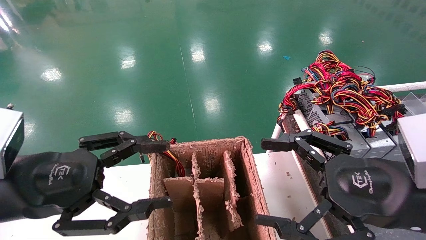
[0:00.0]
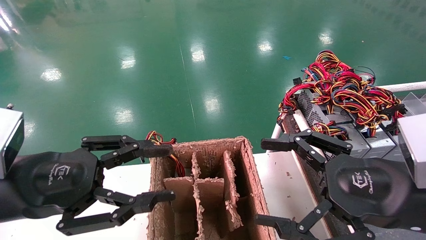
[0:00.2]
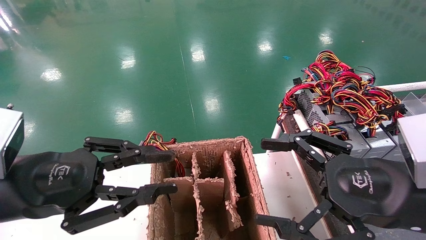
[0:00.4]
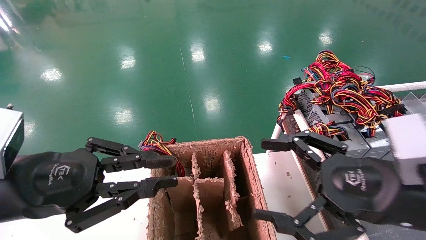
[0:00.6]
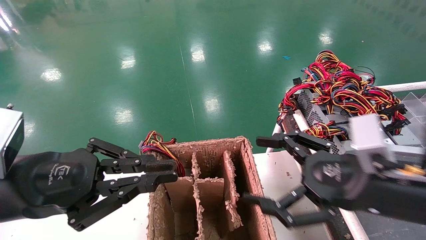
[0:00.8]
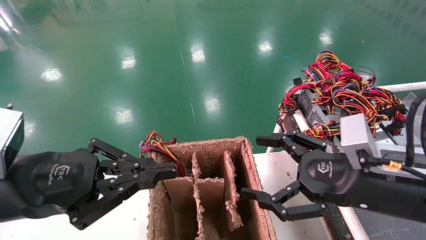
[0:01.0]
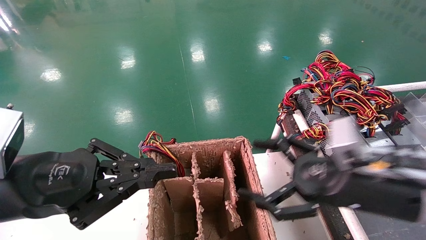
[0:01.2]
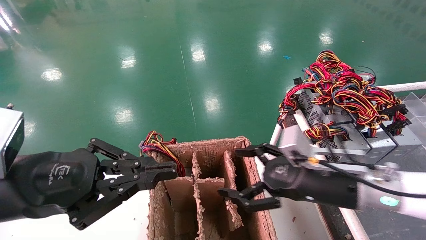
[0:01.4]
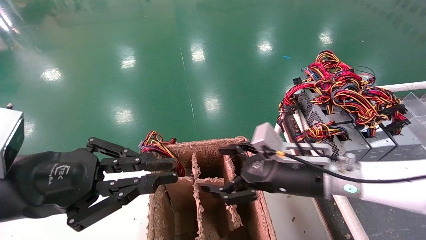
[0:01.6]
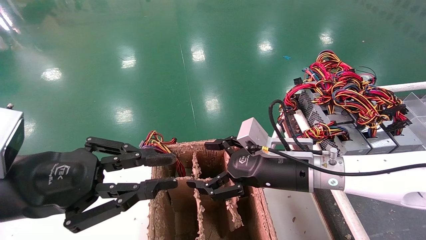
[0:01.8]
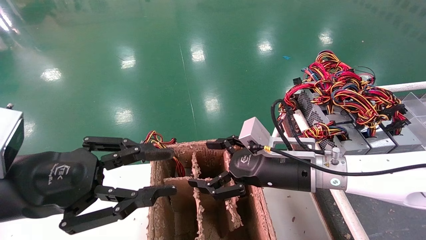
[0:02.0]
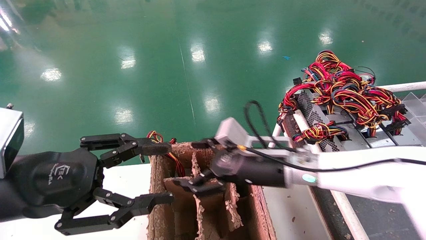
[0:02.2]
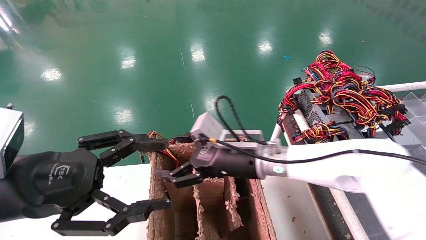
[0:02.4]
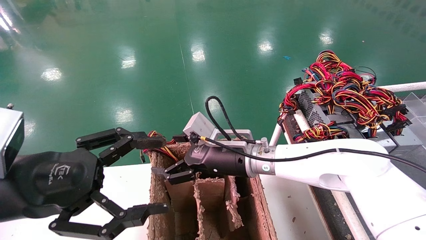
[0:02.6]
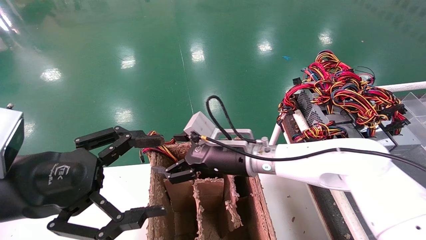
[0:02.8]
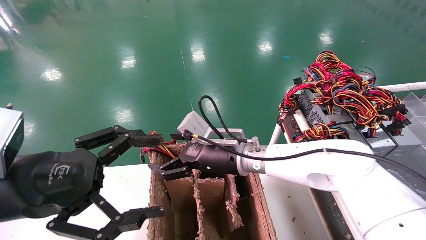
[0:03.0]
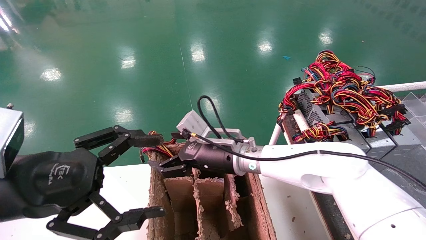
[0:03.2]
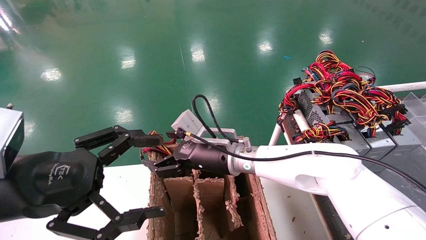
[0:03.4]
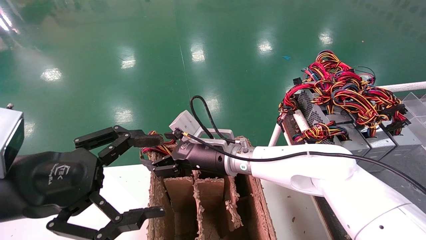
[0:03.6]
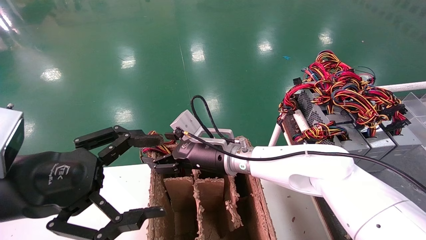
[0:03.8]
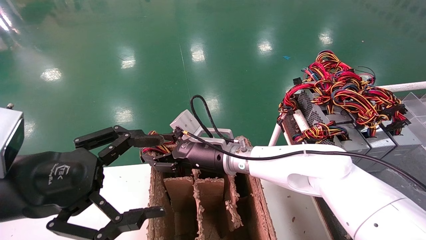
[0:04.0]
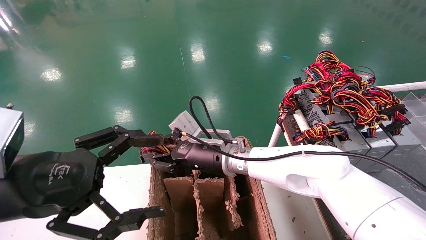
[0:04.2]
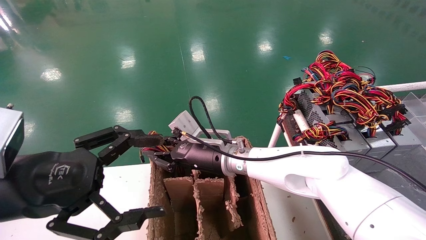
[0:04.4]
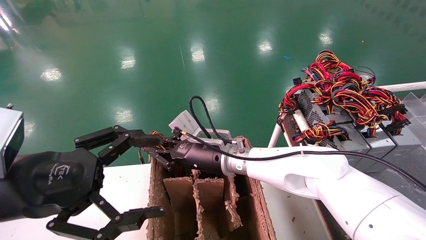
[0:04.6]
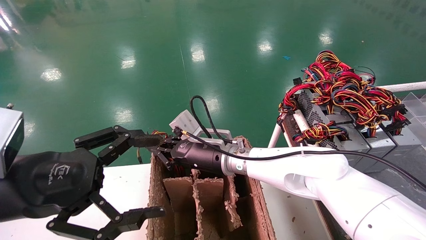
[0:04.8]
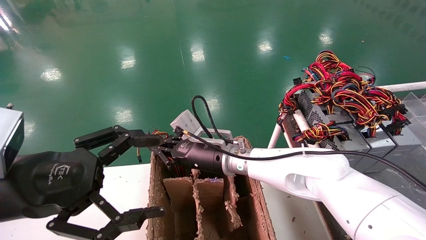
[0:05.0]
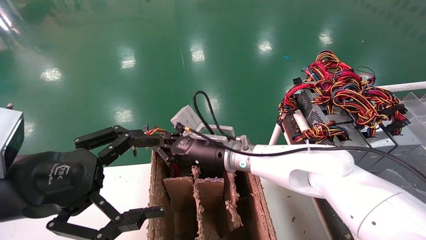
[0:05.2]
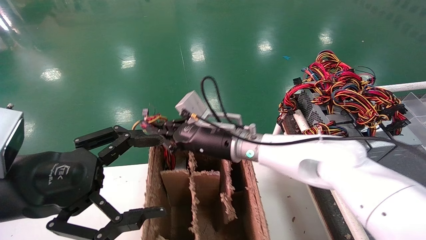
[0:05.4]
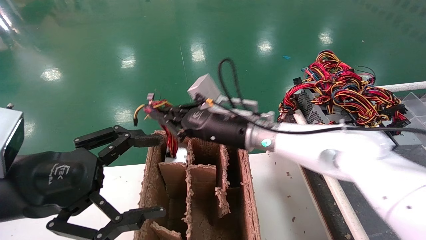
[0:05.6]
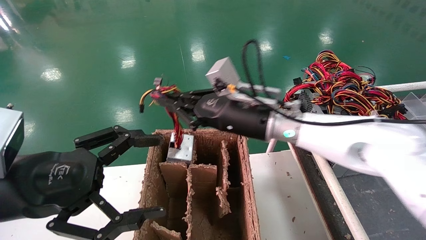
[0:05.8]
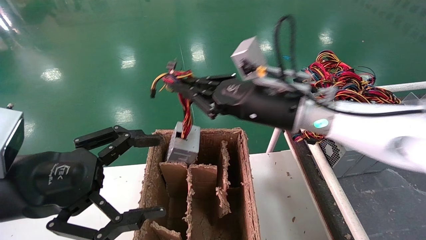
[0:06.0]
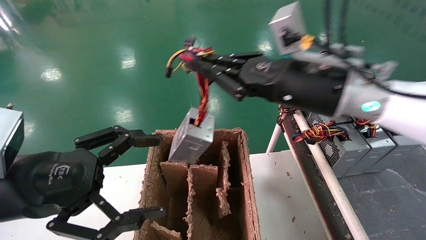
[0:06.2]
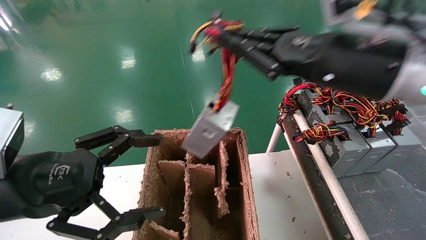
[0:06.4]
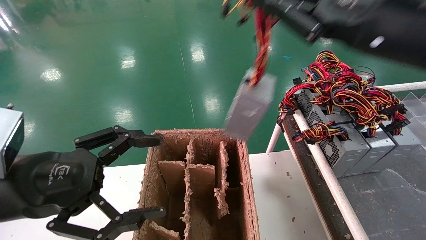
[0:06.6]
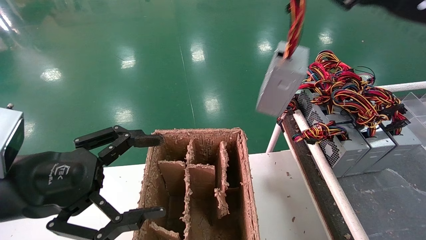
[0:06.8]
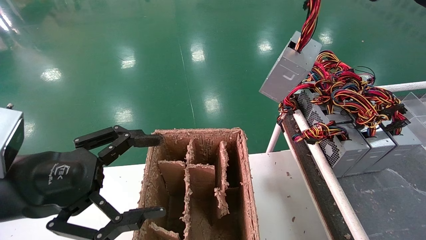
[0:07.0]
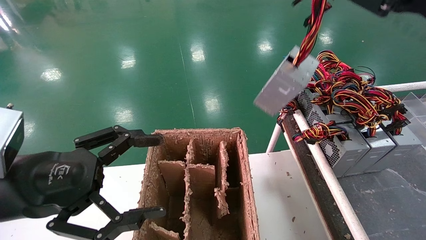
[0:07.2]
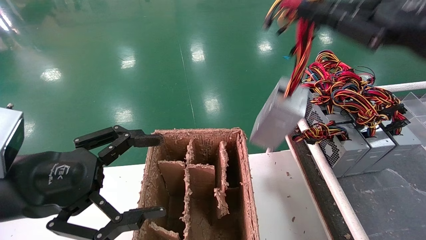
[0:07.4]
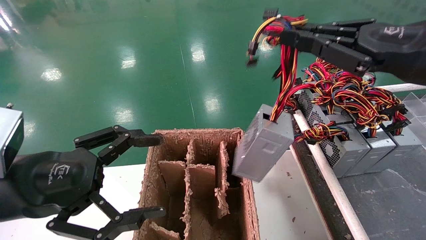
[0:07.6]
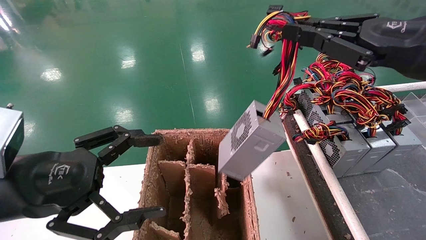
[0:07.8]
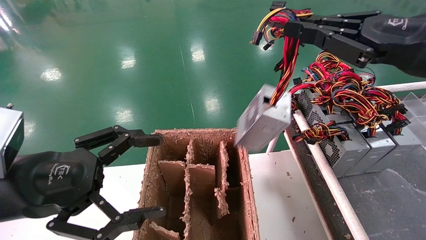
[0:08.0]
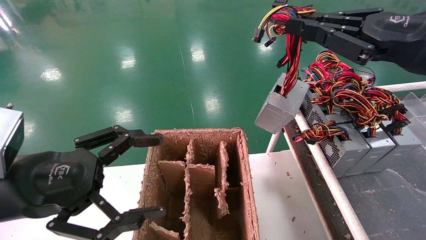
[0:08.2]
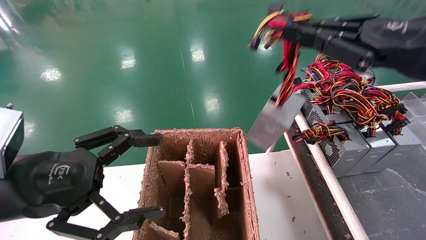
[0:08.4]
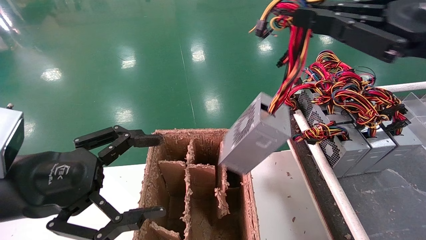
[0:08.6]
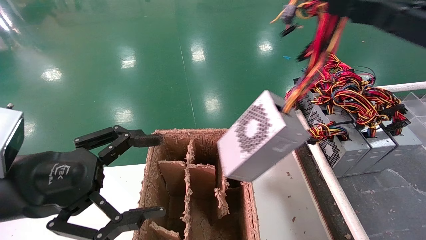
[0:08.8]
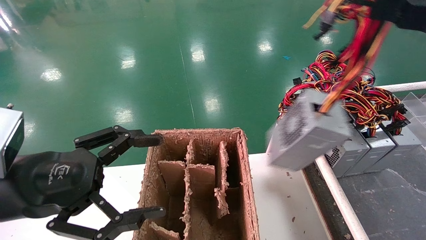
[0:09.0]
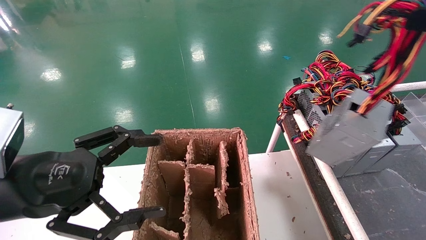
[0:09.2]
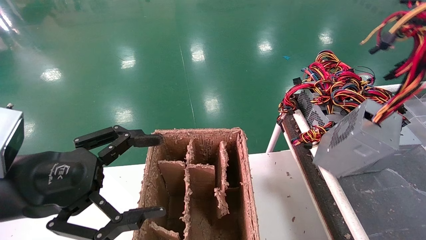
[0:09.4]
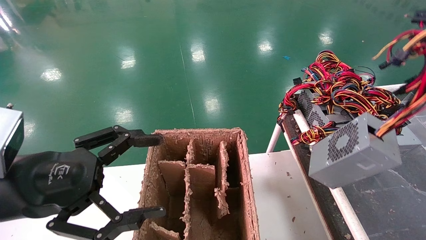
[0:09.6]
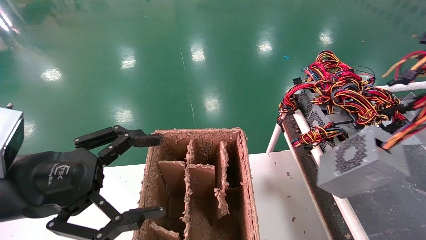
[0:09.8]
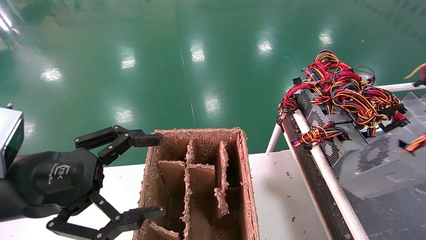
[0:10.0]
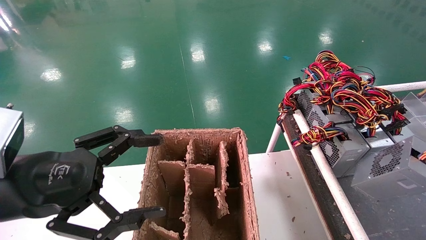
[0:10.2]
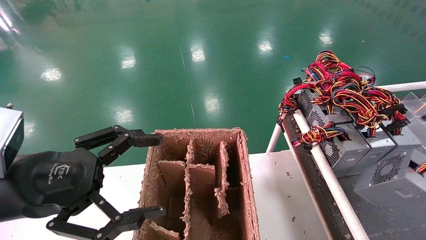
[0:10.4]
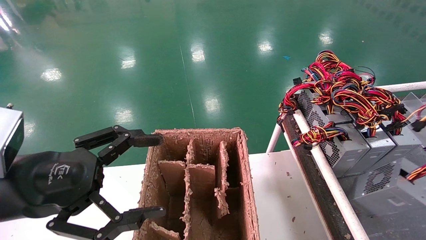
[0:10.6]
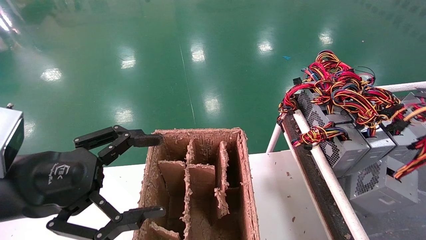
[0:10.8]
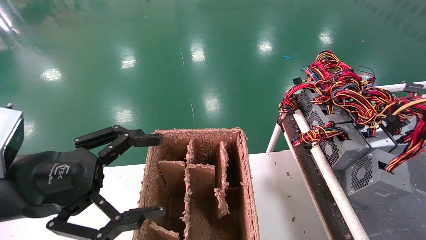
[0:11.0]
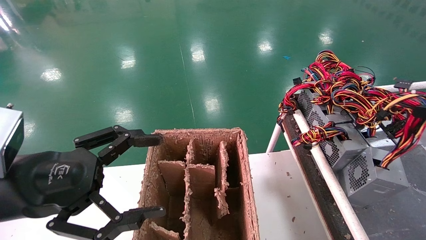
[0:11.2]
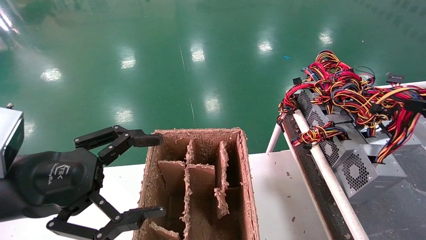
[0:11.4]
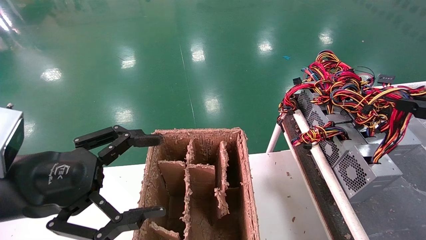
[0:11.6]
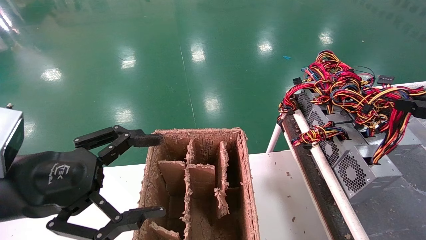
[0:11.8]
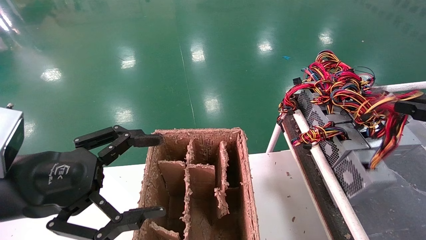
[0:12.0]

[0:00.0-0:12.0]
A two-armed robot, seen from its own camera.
Step, 0:01.0 to 0:04.8: Grab and lift the power supply from the large box.
0:00.0 to 0:01.6: The right gripper is displaced forward, to the left and downward by about 15 cm. Meanwhile the left gripper closes.
0:01.6 to 0:03.0: The right gripper heads to the left and forward, covering approximately 15 cm; the left gripper opens up.
0:03.0 to 0:04.4: The right gripper closes its fingers.
0:04.4 to 0:06.0: The right gripper travels upward, to the right and backward by approximately 20 cm, and closes up.
0:06.0 to 0:07.6: The right gripper is displaced to the right, backward and upward by about 20 cm.
0:07.6 to 0:09.0: The right gripper shifts some 10 cm backward and to the right.
0:09.0 to 0:10.4: The right gripper moves to the right and downward, some 15 cm.
0:10.4 to 0:12.0: The right gripper heads forward, covering roughly 5 cm.

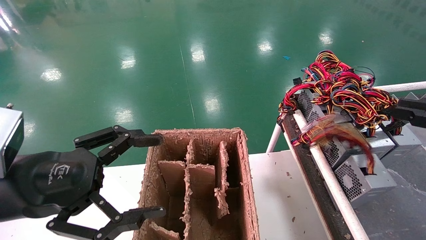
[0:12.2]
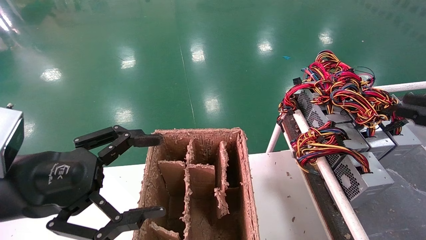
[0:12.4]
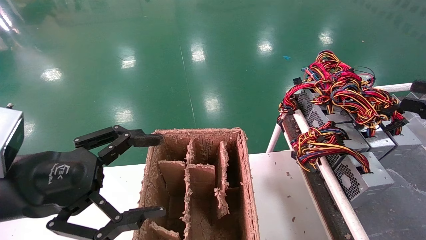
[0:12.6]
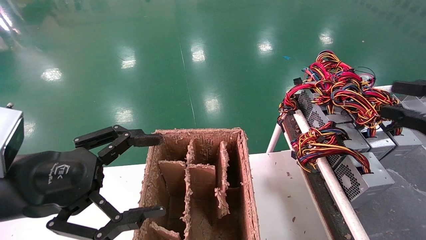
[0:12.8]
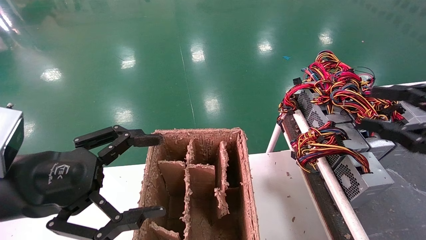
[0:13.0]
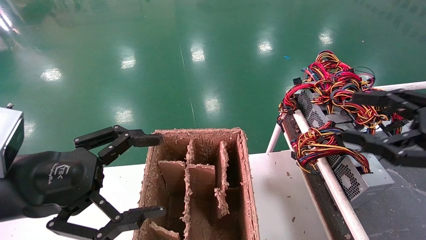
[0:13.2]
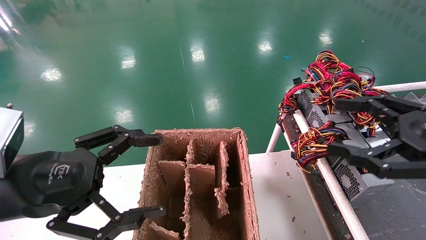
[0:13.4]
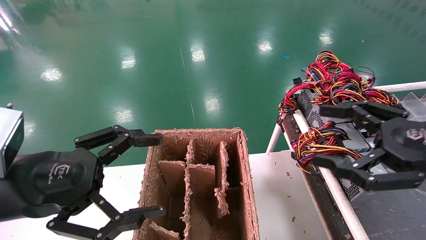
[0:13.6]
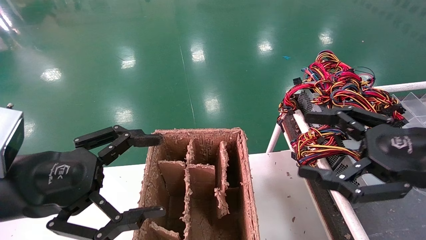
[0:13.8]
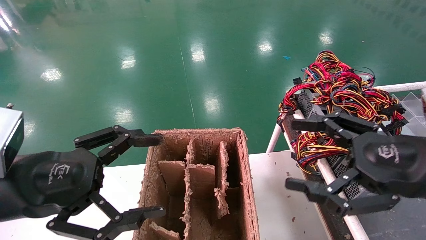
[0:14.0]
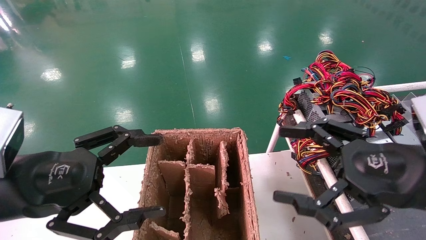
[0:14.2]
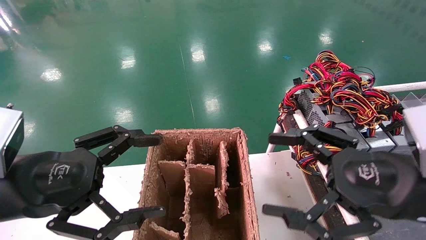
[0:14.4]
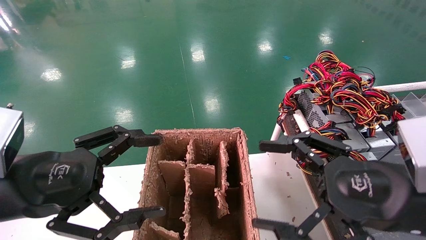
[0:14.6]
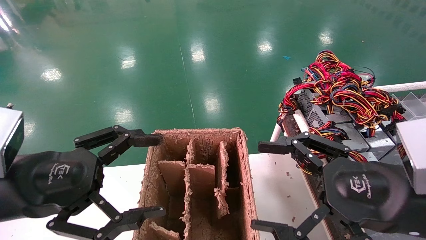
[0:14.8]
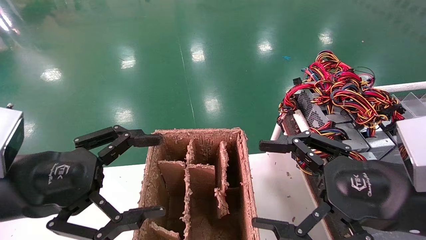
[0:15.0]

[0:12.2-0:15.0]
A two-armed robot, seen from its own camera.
0:12.2 to 0:13.6: The right gripper is displaced to the left by some 15 cm, and opens its fingers.
0:13.6 to 0:15.0: The right gripper heads to the left, covering approximately 10 cm.
